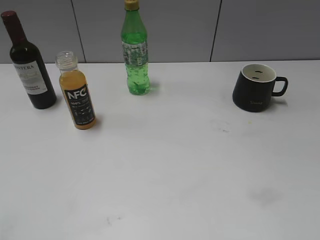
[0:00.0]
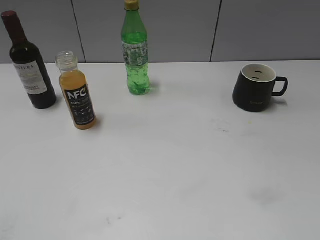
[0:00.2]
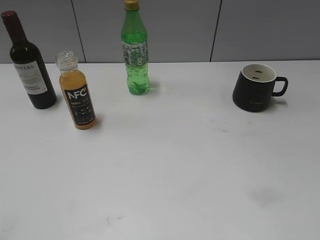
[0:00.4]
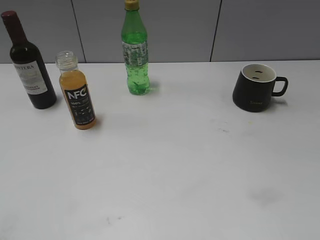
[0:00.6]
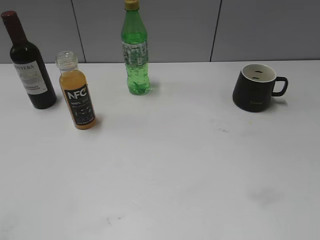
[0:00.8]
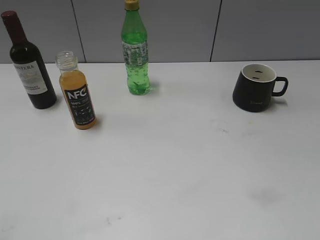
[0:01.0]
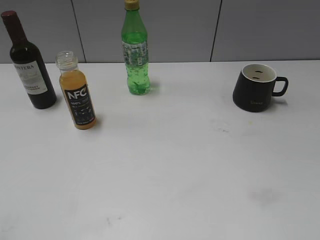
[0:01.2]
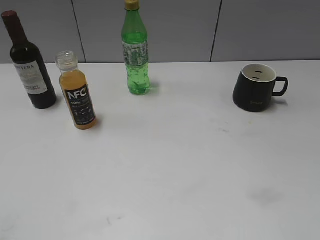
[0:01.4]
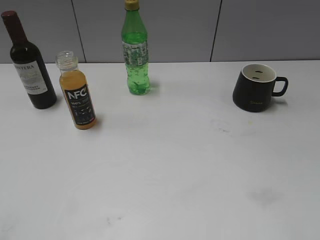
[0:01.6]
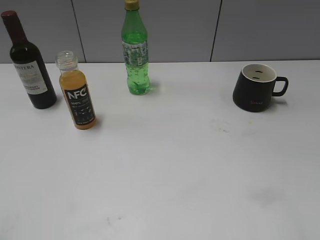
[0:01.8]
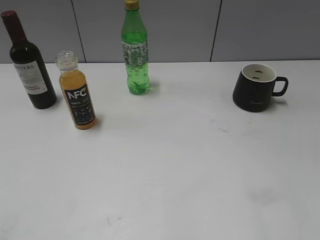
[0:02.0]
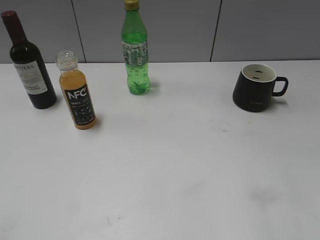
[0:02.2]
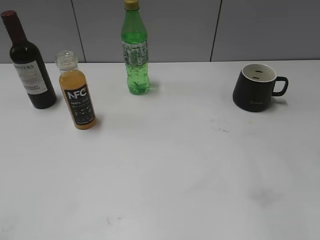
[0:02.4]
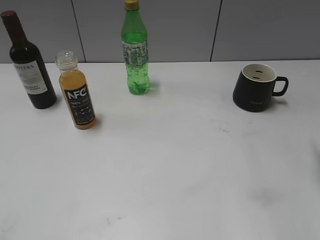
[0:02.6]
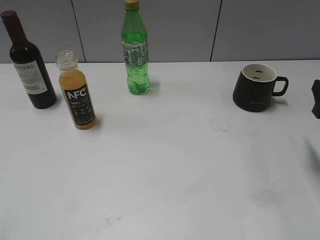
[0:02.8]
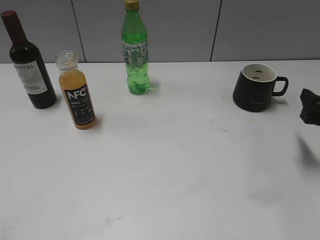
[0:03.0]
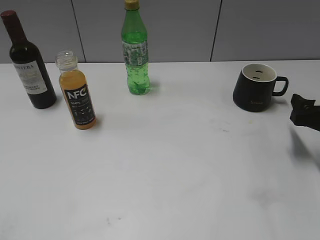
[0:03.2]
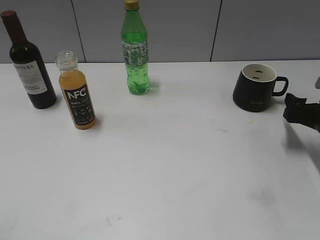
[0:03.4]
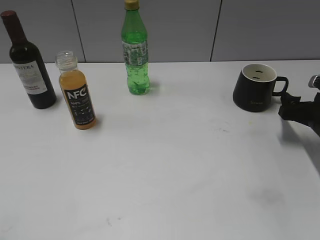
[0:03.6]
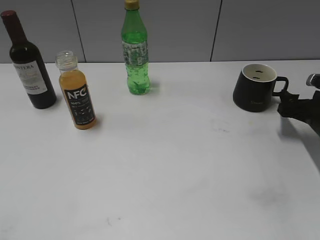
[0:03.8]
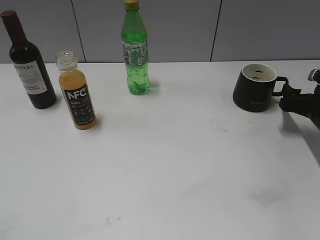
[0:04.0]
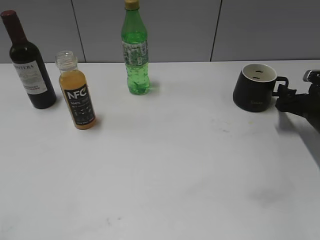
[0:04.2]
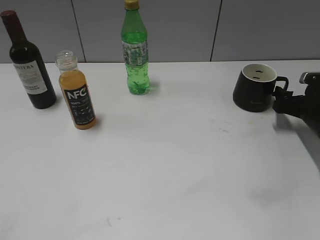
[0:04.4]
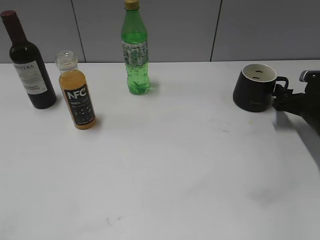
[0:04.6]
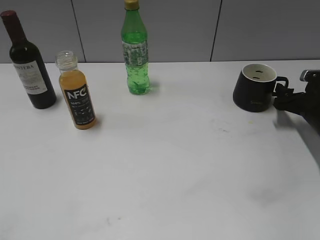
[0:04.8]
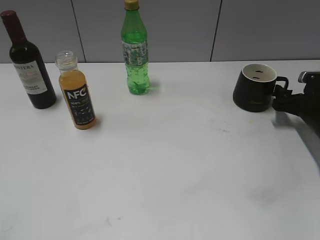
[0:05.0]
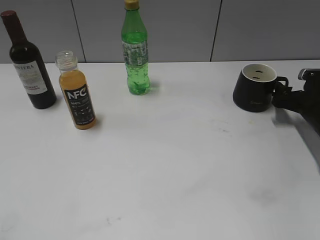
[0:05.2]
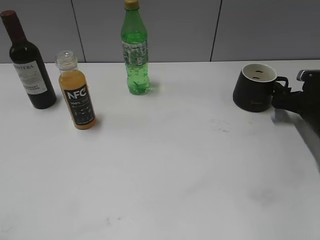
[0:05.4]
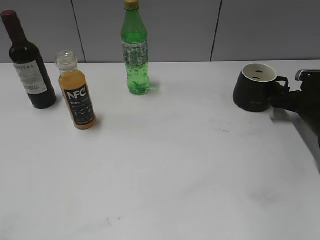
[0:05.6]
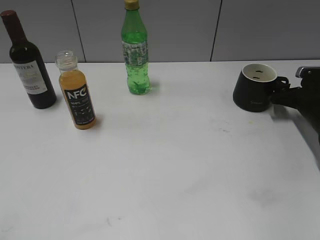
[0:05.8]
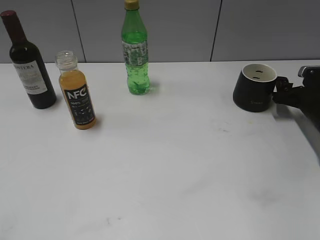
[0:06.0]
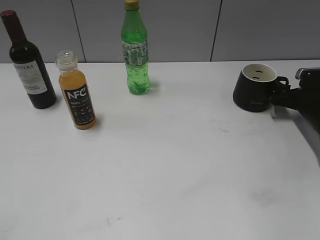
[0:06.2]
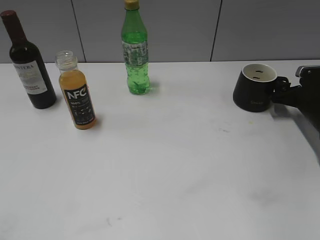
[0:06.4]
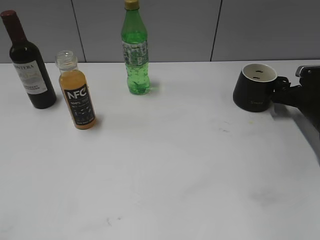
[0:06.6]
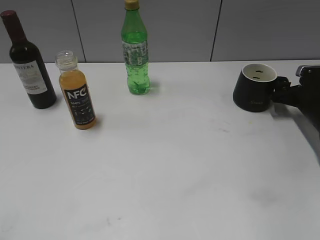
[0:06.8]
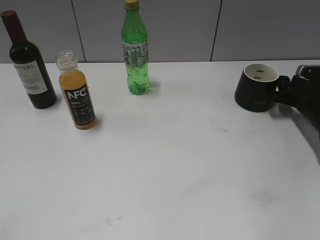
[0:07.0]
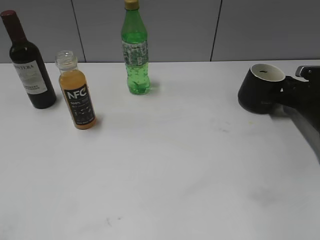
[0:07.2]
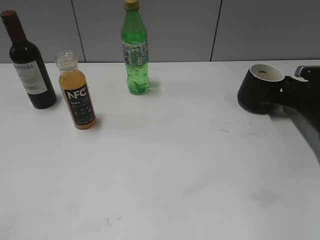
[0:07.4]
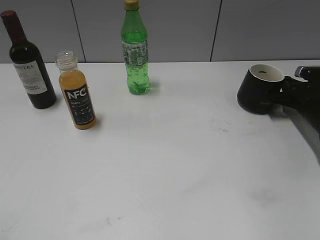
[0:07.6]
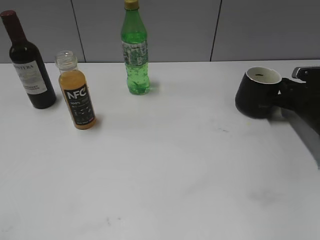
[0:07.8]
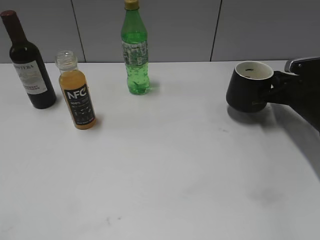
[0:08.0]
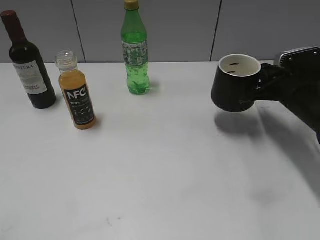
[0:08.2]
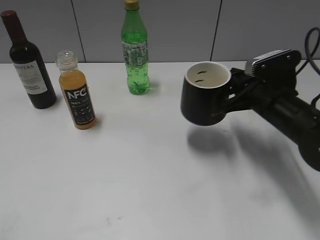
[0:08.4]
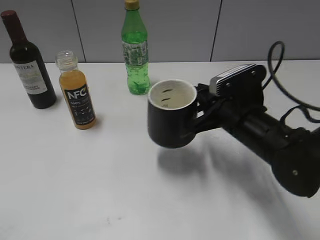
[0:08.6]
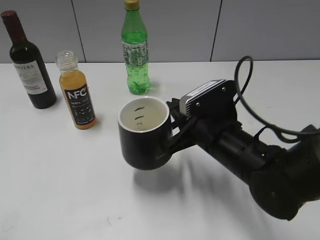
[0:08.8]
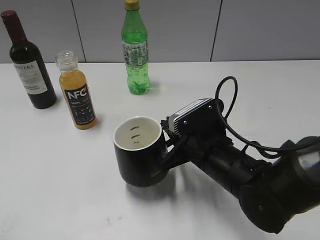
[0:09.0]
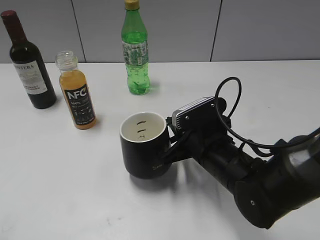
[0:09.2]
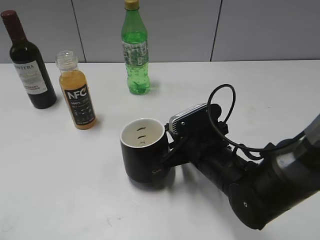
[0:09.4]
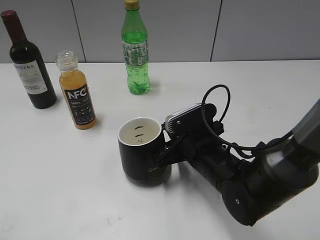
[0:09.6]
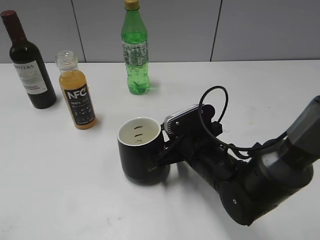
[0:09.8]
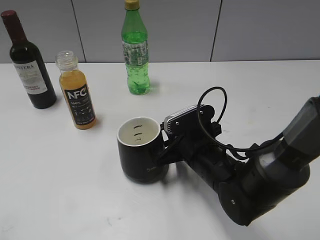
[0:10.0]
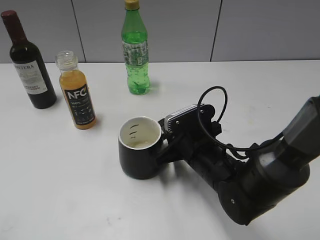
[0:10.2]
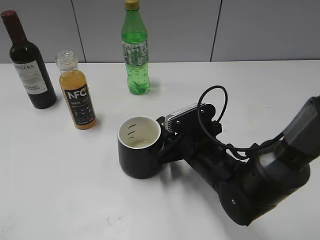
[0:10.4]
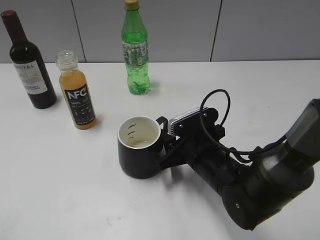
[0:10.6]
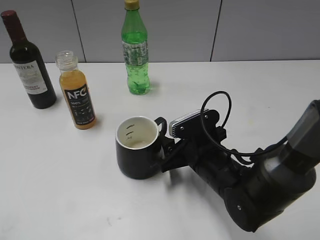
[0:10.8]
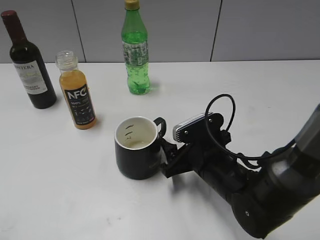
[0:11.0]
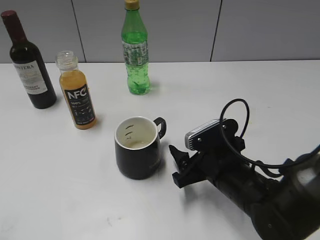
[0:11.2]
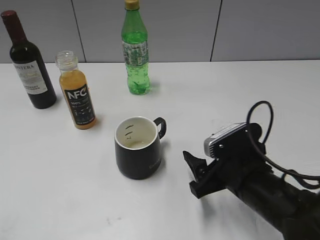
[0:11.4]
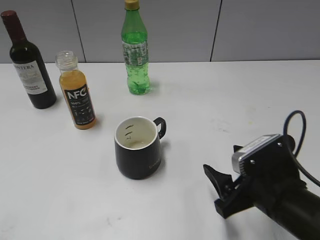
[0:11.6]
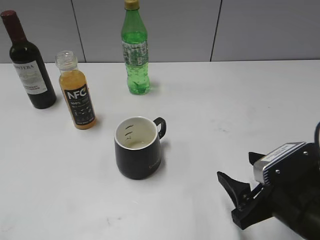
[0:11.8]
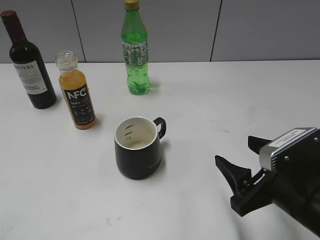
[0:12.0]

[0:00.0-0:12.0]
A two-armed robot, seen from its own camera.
Step, 0:02.8 to 0:07.6: Grasp the black cup with right gripper.
Step, 0:07.8 to 0:10.4: Place the black cup in the center of view with right gripper.
0:01.6 to 0:03.0: The right gripper moves forward and downward, approximately 25 cm.
0:03.0 to 0:04.4: The right gripper travels forward and downward by some 15 cm.
0:04.4 to 0:06.0: The grippers move only a little.
0:06.0 to 0:07.6: The right gripper closes its fingers.
0:07.6 to 0:09.0: The right gripper goes roughly 30 cm to the left and backward.
0:09.0 to 0:10.4: The right gripper opens its fingers.
0:10.4 to 0:12.0: The right gripper travels backward, to the right and upward by roughly 15 cm, and opens.

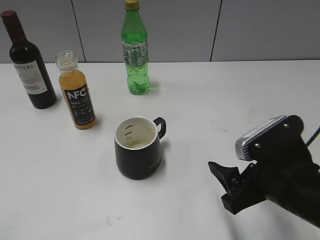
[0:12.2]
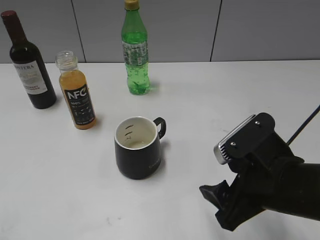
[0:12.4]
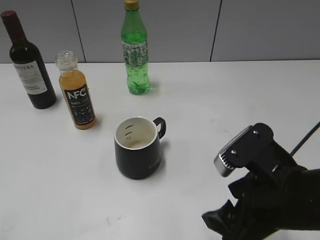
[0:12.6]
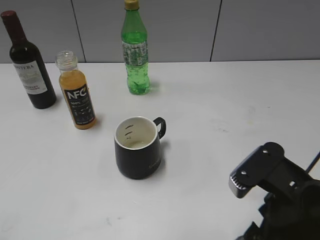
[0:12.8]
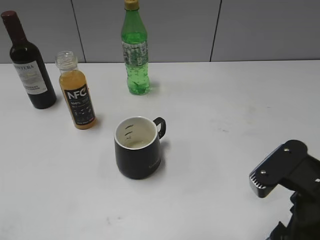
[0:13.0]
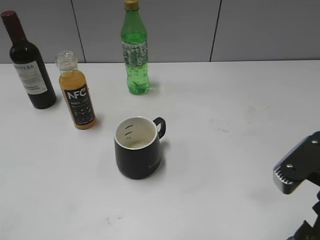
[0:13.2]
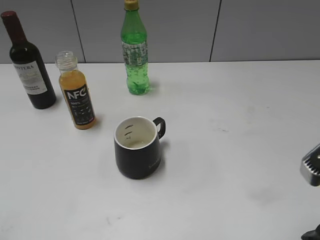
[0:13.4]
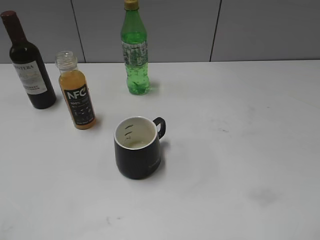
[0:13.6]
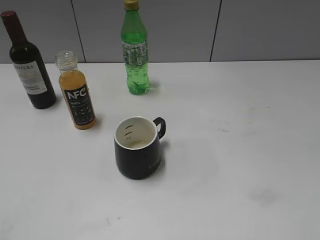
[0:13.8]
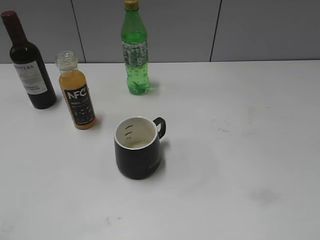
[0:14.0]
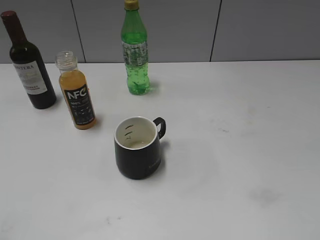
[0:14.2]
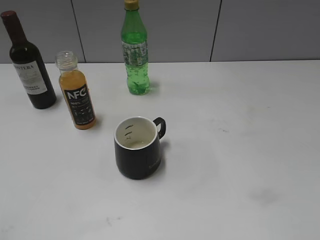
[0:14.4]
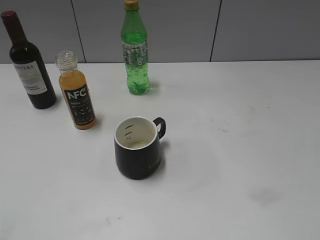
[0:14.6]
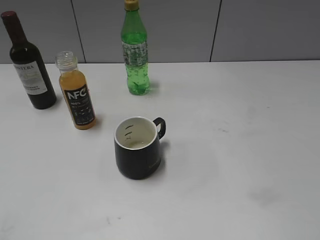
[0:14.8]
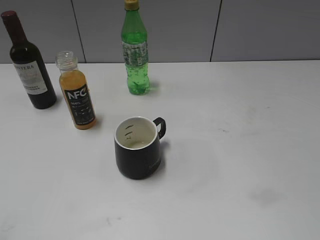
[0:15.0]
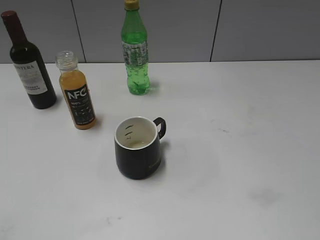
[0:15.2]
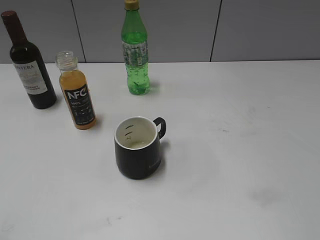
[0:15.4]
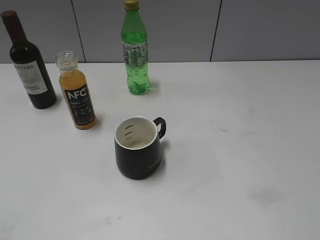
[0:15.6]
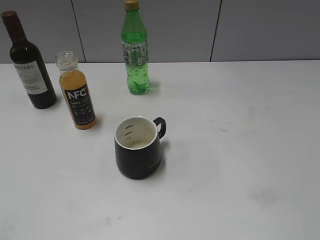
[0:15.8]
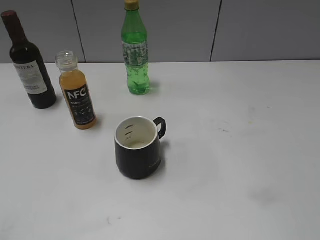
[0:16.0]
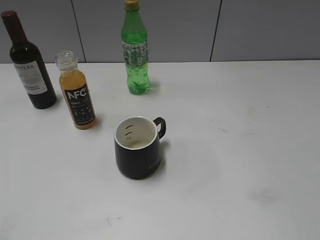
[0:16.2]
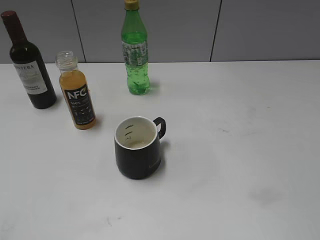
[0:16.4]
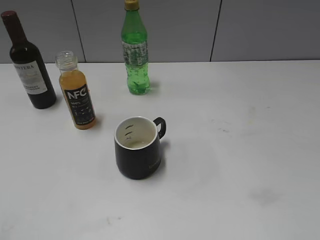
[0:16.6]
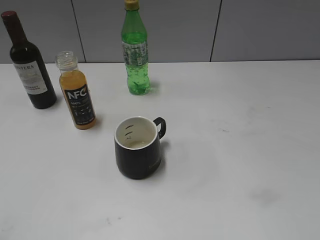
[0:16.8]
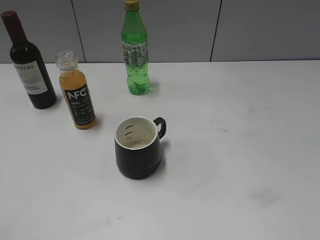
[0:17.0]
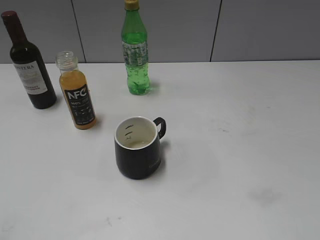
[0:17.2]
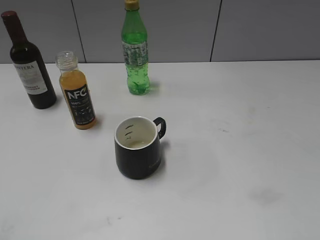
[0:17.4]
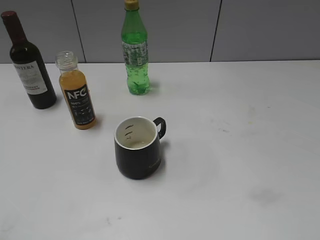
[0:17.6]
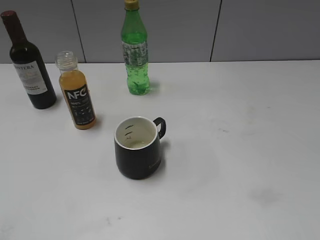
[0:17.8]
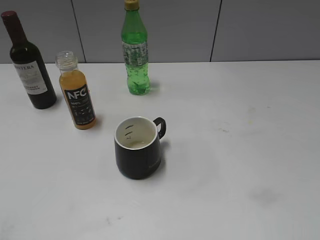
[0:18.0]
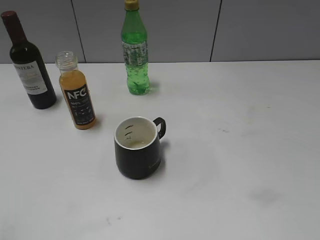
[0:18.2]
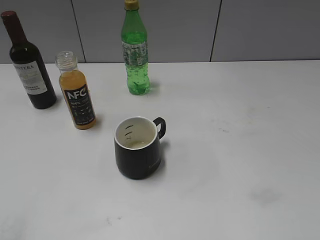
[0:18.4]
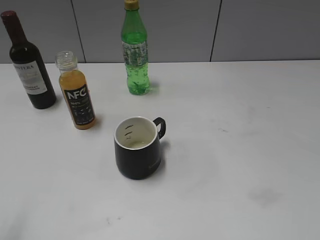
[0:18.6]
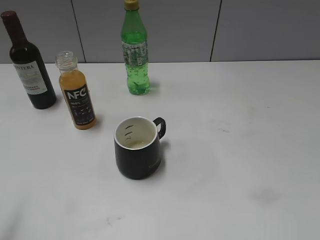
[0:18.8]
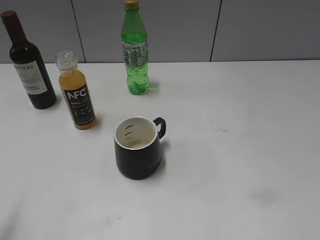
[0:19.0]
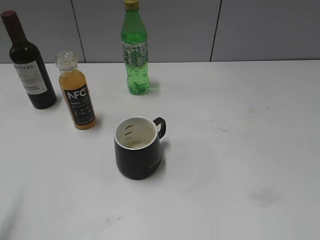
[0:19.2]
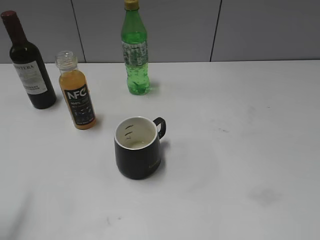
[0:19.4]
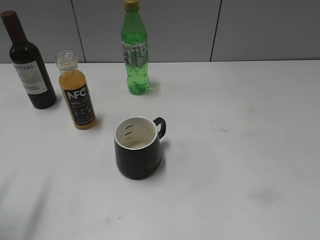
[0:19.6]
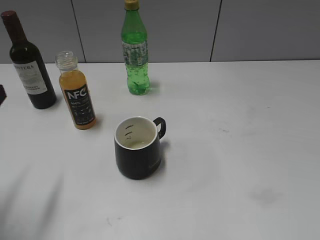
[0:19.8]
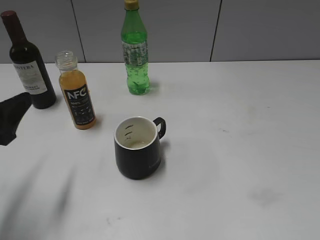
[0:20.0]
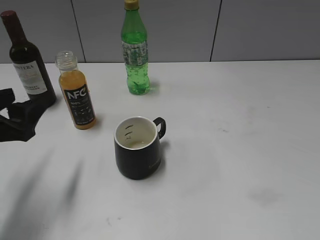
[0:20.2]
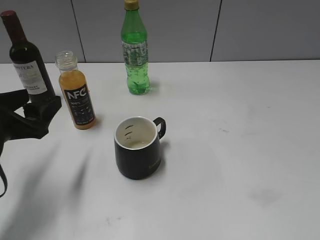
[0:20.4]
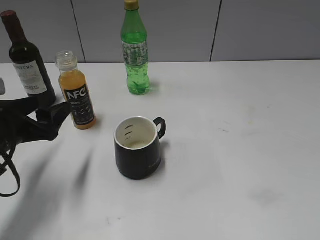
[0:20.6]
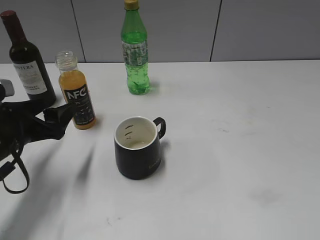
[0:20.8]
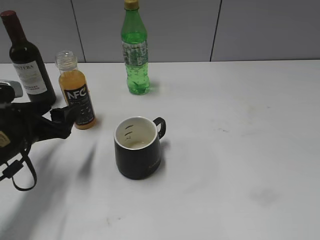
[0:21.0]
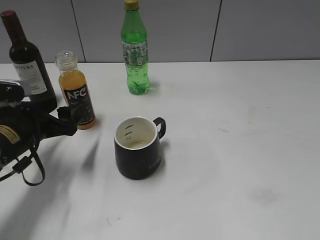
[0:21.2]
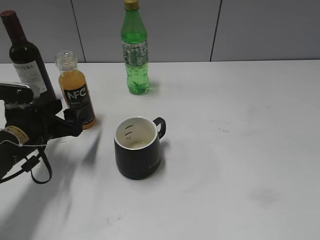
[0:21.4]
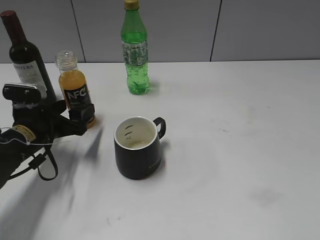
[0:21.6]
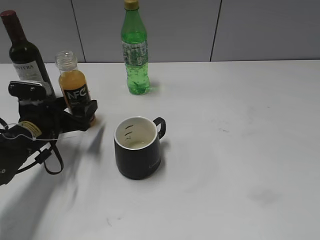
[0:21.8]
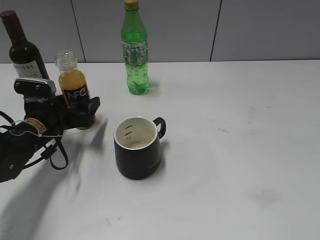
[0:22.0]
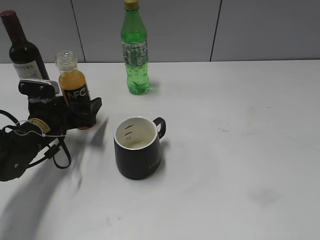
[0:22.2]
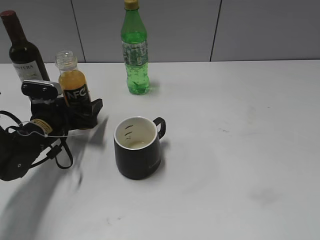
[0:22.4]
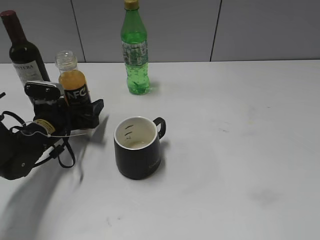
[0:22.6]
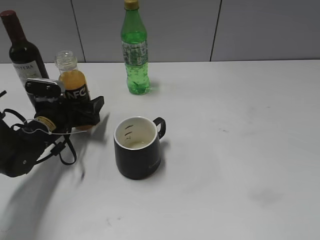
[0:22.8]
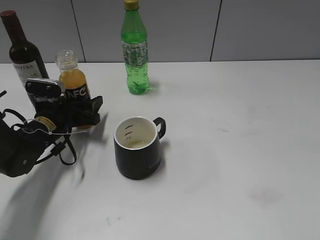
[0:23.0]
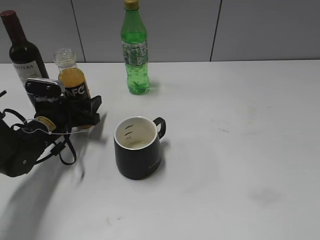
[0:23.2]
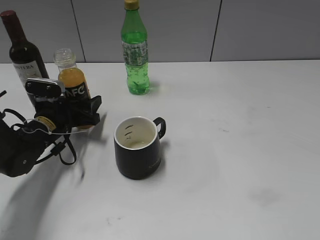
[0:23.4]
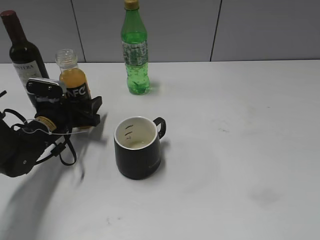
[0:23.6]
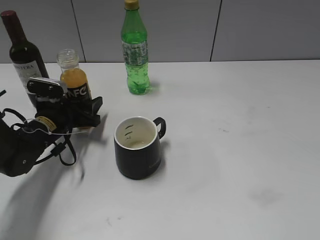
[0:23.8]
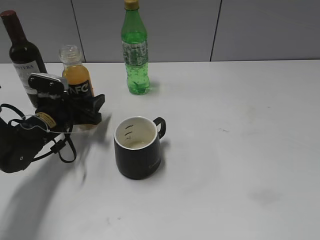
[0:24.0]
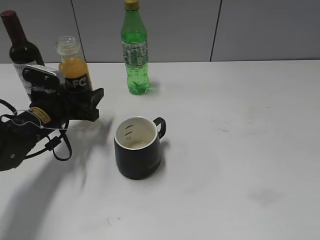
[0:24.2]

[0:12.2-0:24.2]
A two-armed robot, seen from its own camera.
Step, 0:12.2 to 0:23.8: Grasp the bottle with orange juice with left gripper.
0:12.2 to 0:13.8: The right gripper shifts approximately 15 cm upward, to the right and backward.
0:15.2 to 0:16.6: Neither gripper changes place.
0:18.2 to 0:19.8: The left gripper is displaced forward and downward by approximately 15 cm.
0:19.8 to 0:21.2: The left gripper goes some 15 cm forward and downward.
0:21.2 to 0:22.6: The left gripper goes about 10 cm forward and downward.
0:22.6 to 0:24.2: The left gripper closes up.
